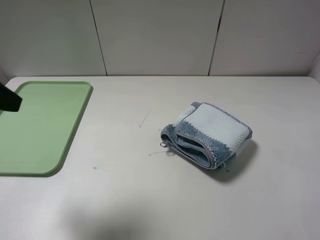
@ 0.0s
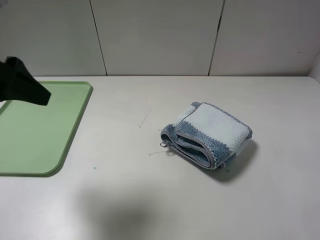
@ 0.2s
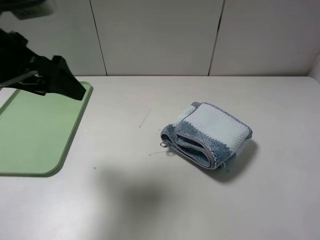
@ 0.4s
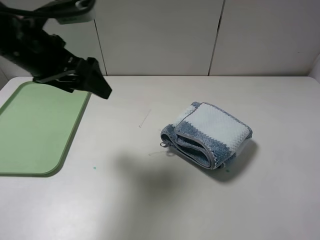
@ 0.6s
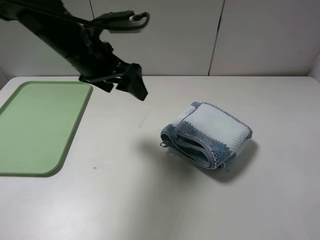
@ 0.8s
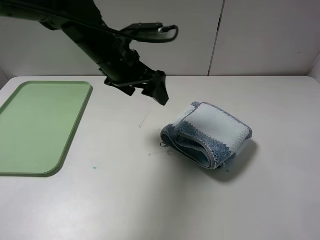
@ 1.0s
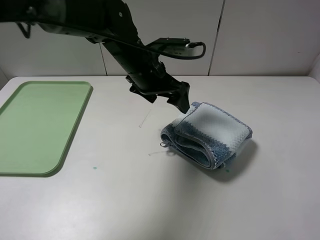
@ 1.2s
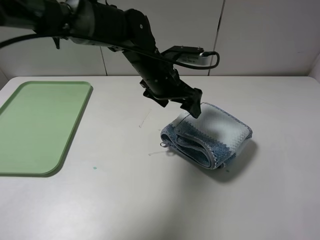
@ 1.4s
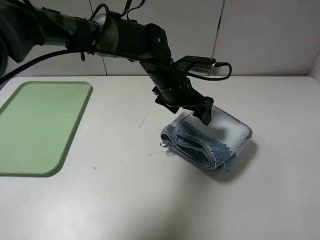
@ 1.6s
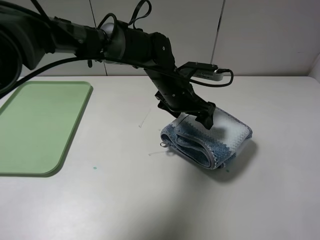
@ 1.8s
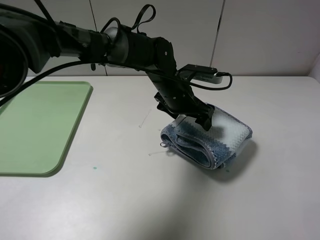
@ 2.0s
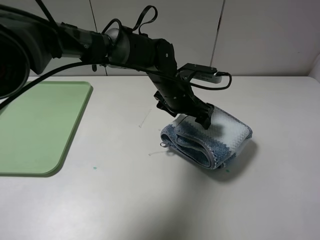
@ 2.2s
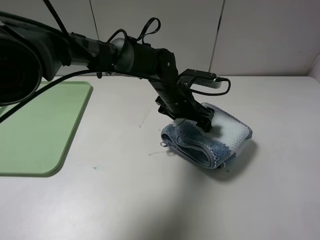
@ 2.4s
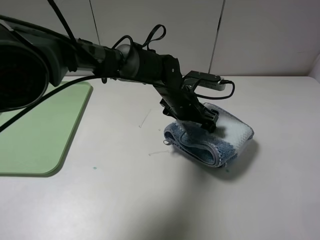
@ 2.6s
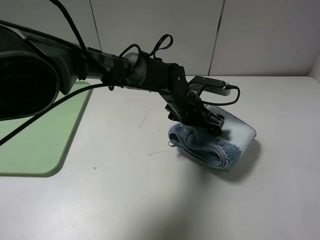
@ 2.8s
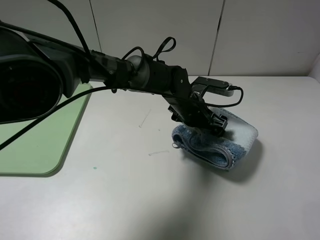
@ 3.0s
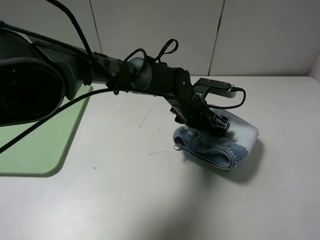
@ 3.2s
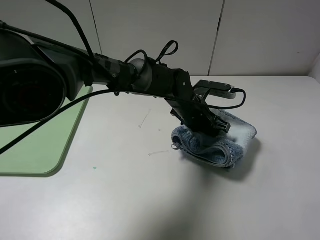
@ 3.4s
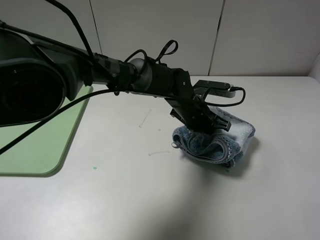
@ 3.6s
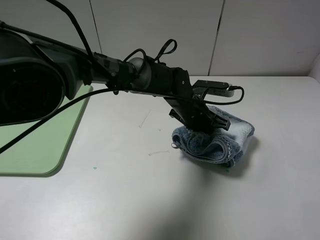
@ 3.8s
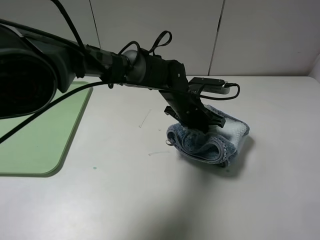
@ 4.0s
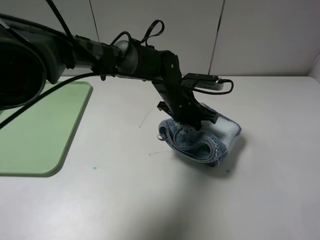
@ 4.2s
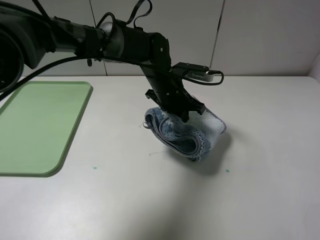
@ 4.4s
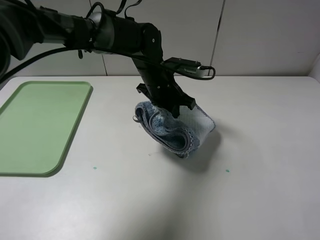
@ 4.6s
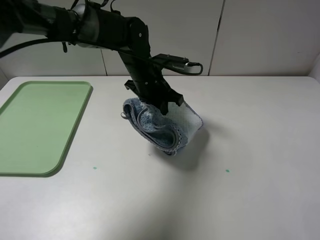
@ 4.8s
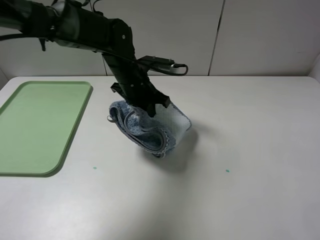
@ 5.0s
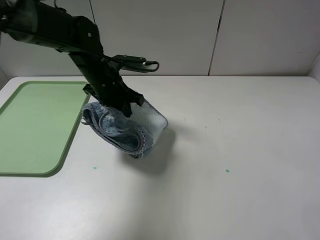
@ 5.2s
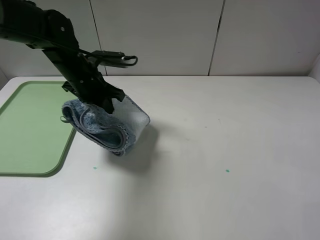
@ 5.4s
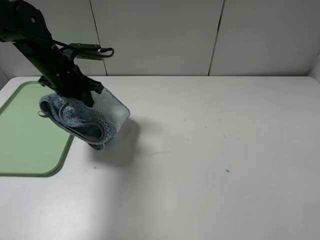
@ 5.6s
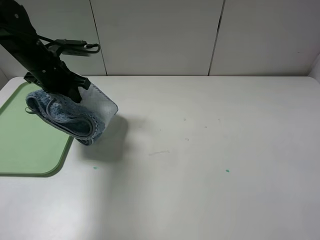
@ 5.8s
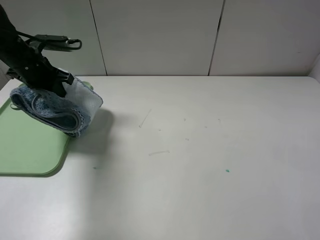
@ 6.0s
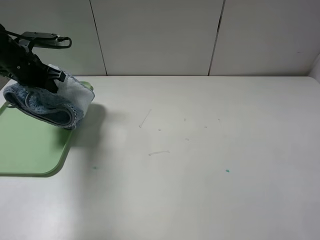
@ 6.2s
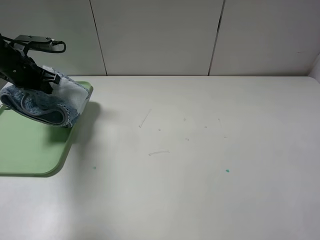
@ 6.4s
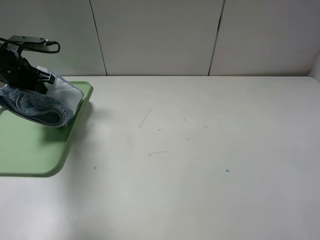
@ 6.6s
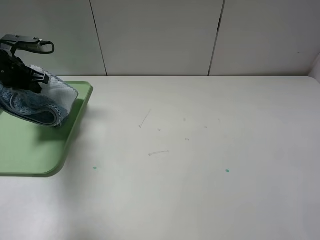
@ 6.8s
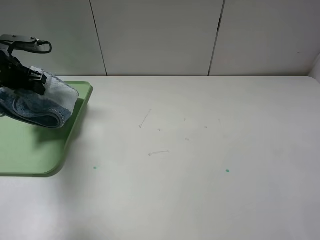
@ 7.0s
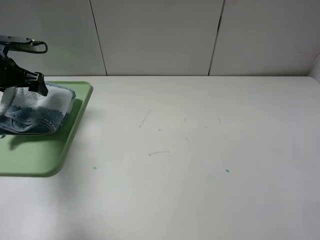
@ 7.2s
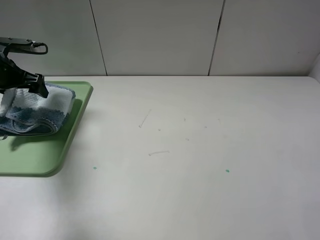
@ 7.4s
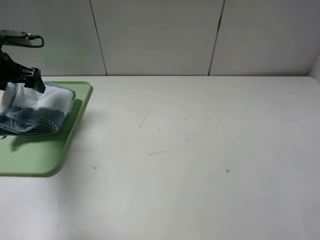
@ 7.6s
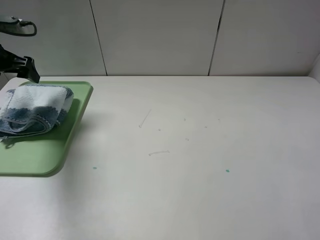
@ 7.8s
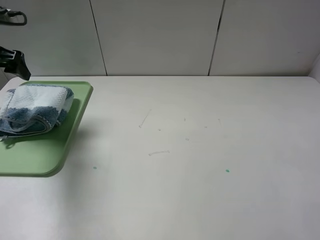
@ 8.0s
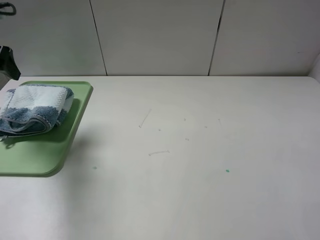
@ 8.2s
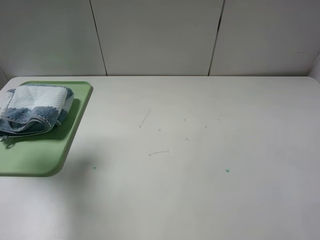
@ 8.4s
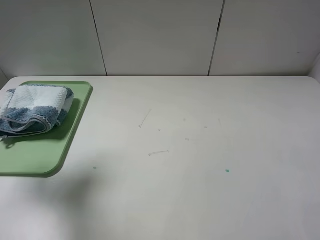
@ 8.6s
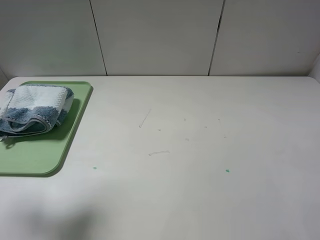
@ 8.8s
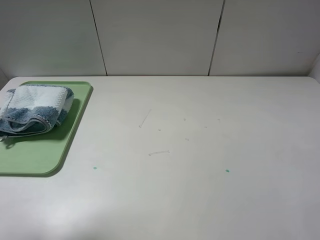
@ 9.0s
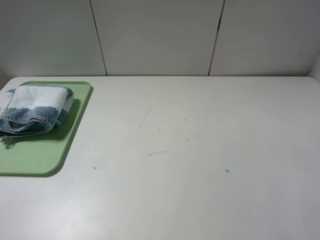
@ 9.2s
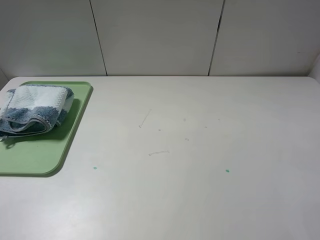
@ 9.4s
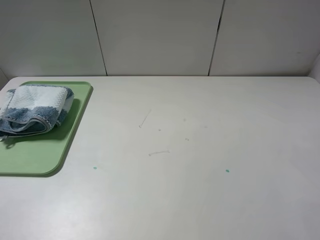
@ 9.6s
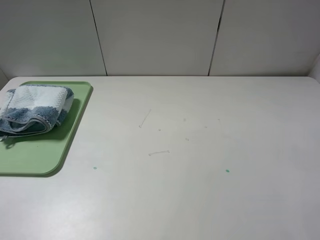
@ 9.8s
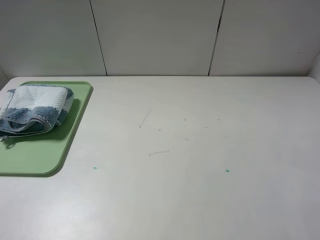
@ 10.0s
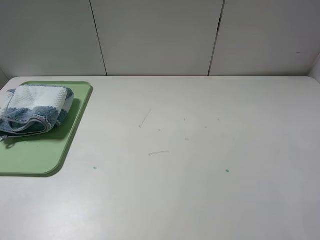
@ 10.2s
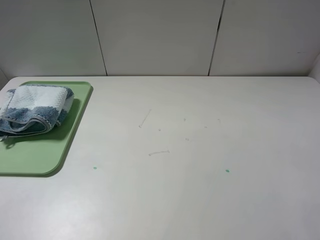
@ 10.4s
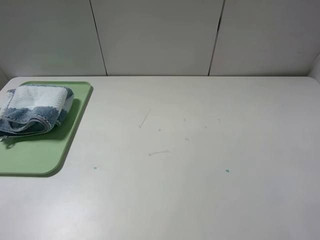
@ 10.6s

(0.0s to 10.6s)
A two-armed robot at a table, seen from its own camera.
Step, 0.0s - 3.8s: Grasp the blue white towel with the left gripper.
0.0s - 1.6s: The left gripper is displaced to the right, forward and downward by approximately 40 cm.
1.6s - 3.0s: The left gripper moves downward, some 5 cm.
3.0s - 4.6s: The left gripper is displaced to the left and upward by roughly 10 cm, and closes its fingers.
4.6s - 6.0s: The left gripper travels to the left by approximately 30 cm.
6.0s - 7.6s: The left gripper goes approximately 10 cm to the left, and opens.
7.6s - 9.0s: The left gripper goes about 30 cm backward and upward.
9.0s - 10.6s: The left gripper travels backward and downward by some 15 cm.
